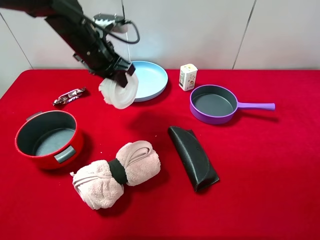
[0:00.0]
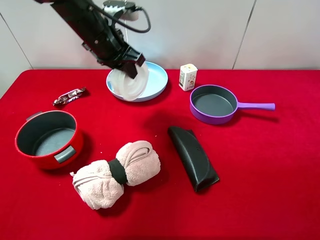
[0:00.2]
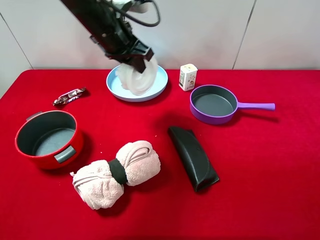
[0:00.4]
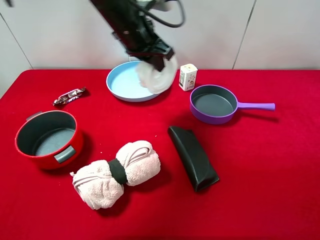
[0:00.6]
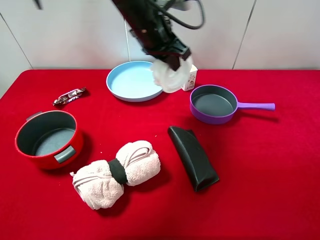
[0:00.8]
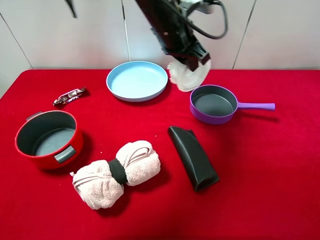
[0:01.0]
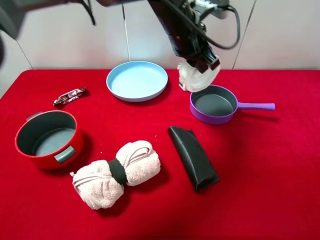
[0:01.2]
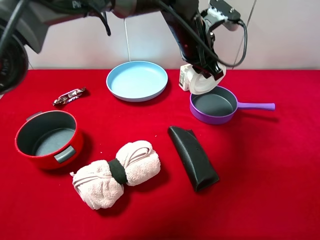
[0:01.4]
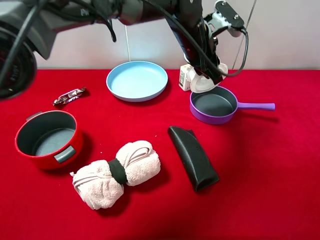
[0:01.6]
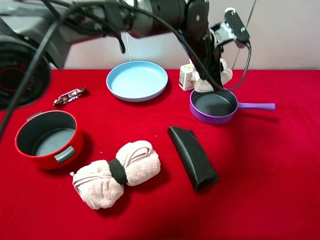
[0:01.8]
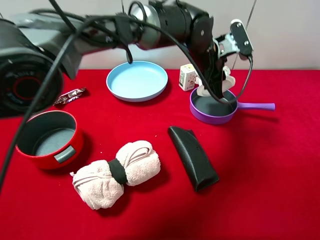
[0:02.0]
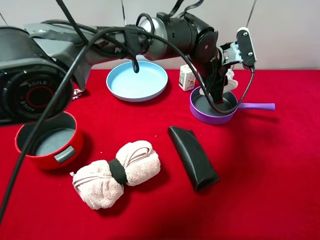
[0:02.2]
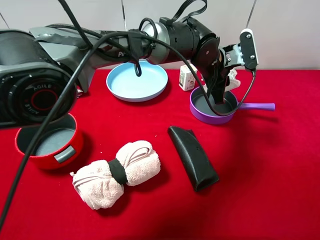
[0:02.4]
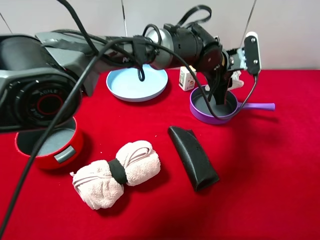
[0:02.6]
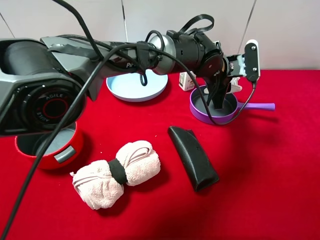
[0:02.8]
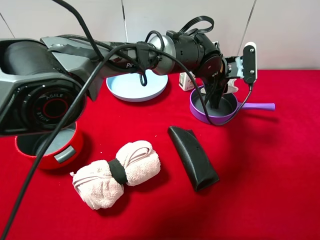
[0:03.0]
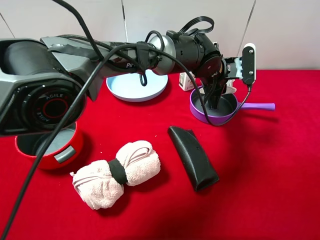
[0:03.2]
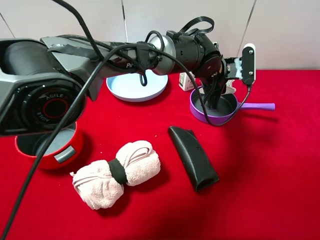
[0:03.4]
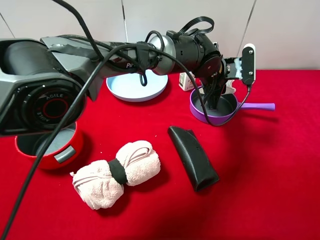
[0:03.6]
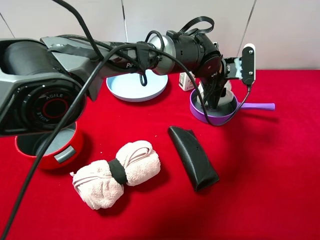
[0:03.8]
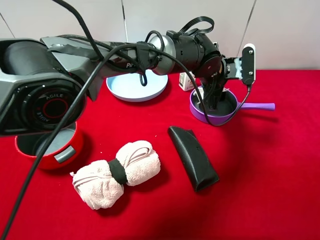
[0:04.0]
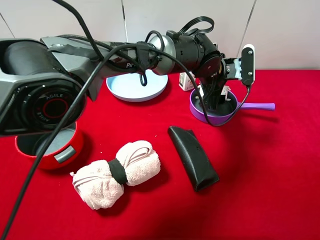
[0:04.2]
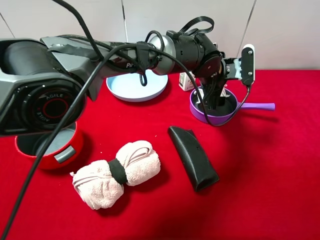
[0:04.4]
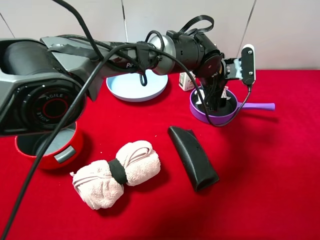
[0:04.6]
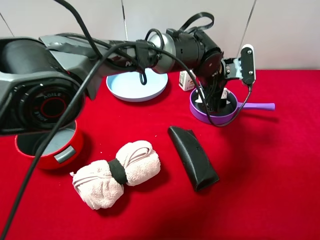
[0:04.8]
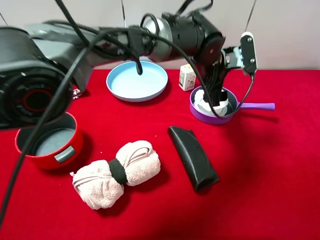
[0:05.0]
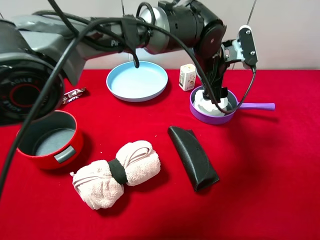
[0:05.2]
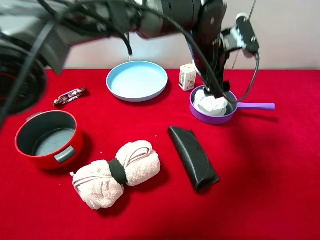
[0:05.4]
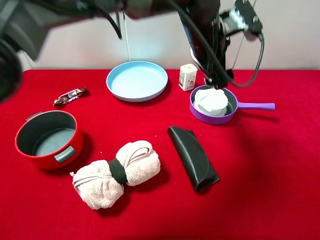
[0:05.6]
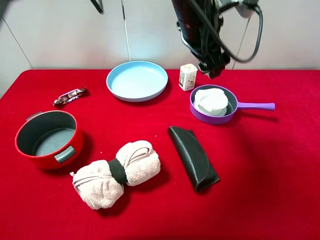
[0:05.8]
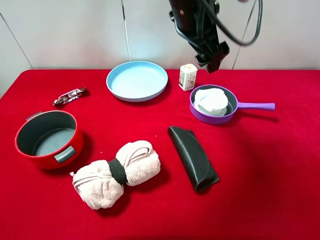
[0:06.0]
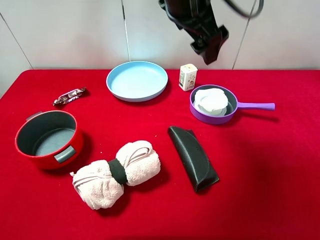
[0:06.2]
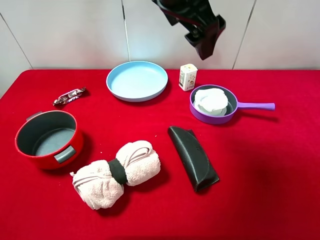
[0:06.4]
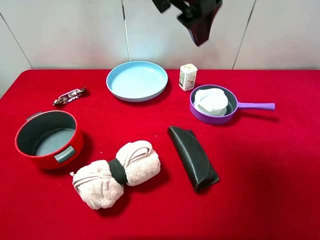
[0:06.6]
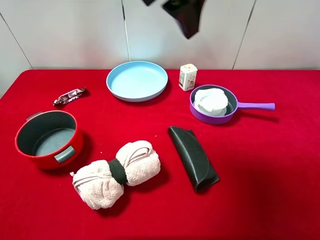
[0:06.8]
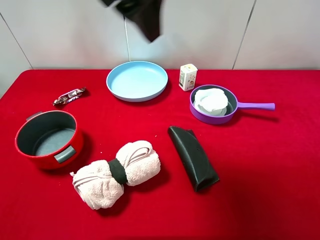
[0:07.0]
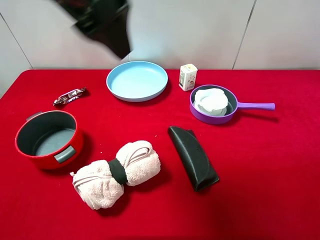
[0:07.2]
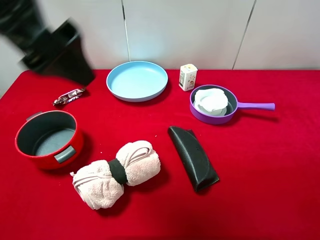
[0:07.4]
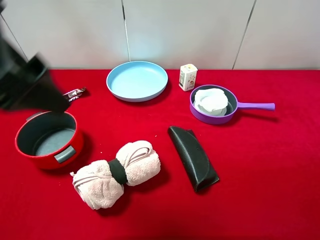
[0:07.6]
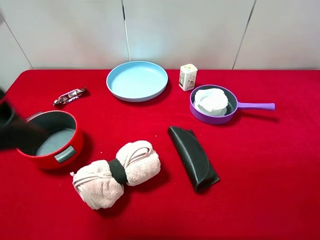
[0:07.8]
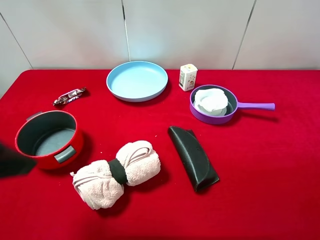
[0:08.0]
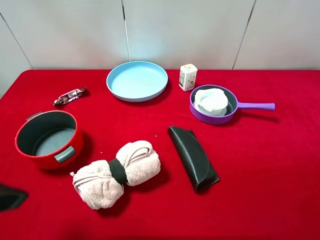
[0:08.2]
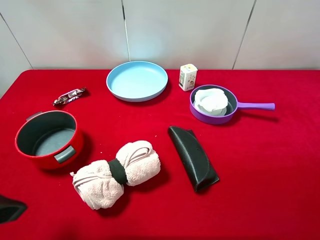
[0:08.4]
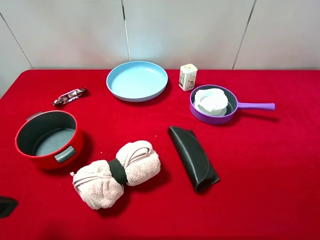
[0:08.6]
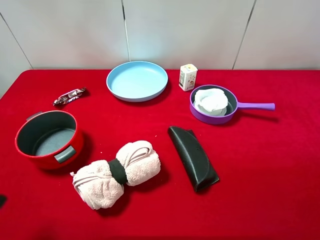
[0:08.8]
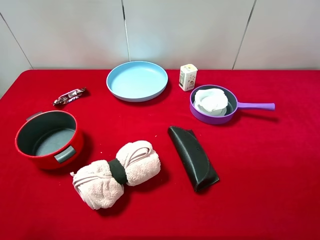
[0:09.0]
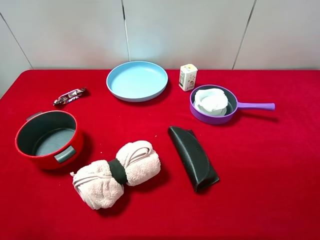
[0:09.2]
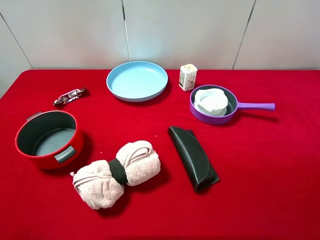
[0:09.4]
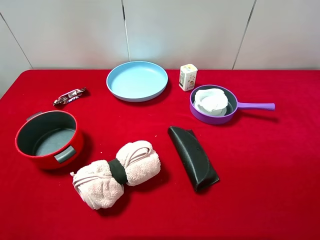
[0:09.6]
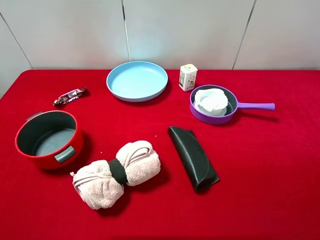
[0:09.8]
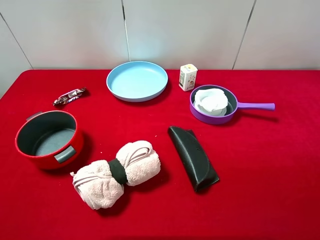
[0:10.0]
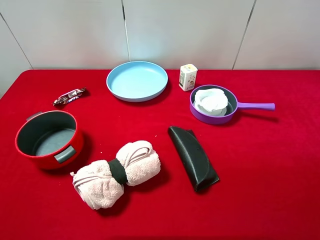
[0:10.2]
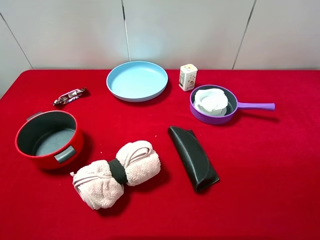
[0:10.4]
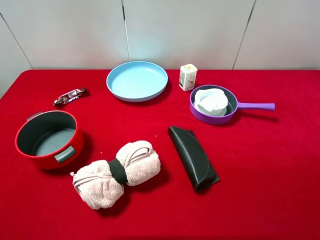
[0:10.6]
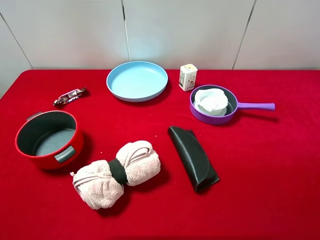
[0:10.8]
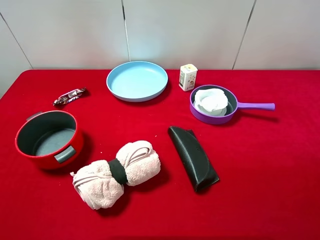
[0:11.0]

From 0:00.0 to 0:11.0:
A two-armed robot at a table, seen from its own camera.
Task of the whole recording: pick up an item with a gripper and place it in a random container on the desktop.
From 0:00.0 to 0:01.6: The left gripper shifts roughly 20 cm to the right.
From 0:01.6 to 0:03.2: The left gripper shifts approximately 5 cm downward.
From 0:03.2 to 0:04.8: The left gripper opens up.
From 0:04.8 to 0:06.2: The left gripper shifts about 20 cm upward and to the left.
From 0:06.2 to 0:07.8: The left gripper shifts about 30 cm to the left and backward.
From 0:07.8 to 0:09.4: The left gripper moves to the left, backward and downward, approximately 15 cm.
